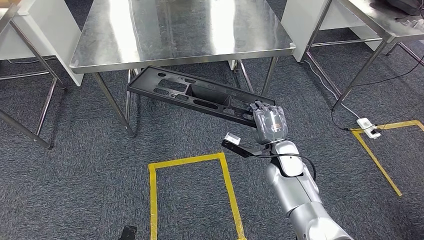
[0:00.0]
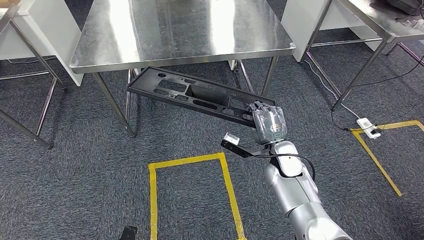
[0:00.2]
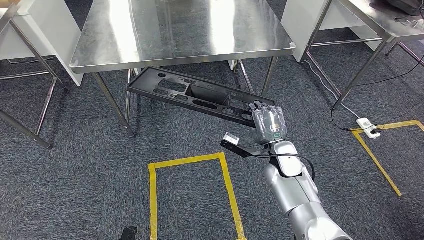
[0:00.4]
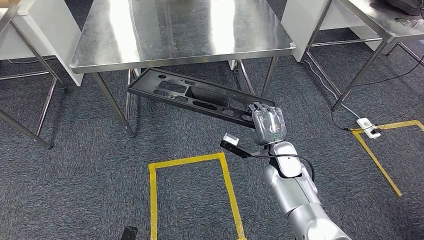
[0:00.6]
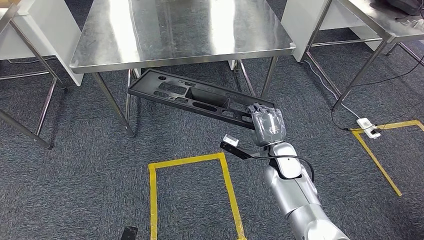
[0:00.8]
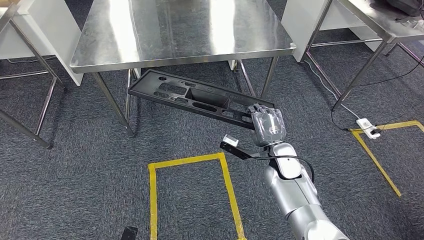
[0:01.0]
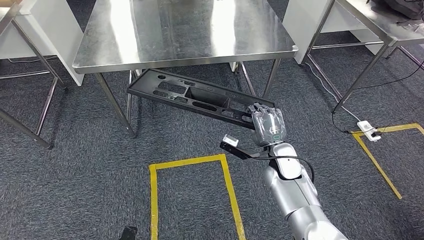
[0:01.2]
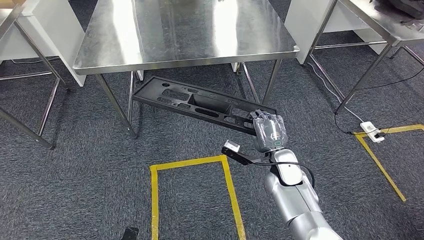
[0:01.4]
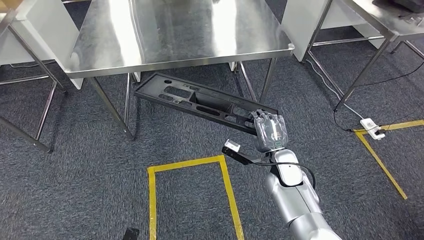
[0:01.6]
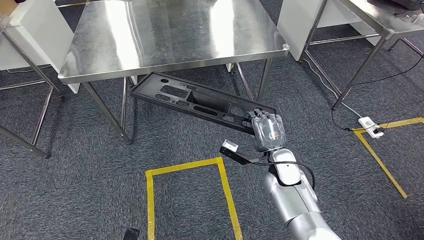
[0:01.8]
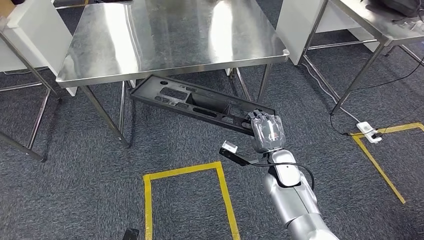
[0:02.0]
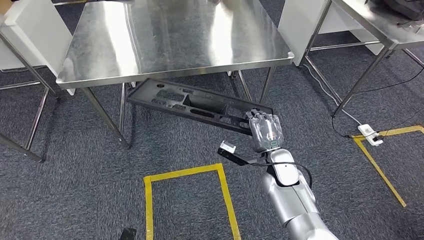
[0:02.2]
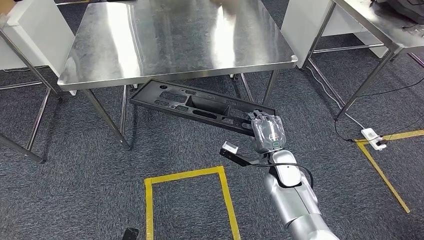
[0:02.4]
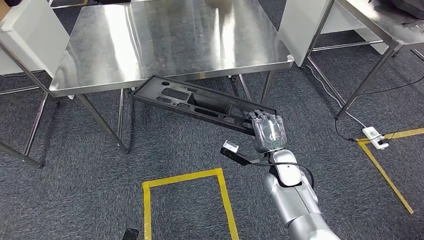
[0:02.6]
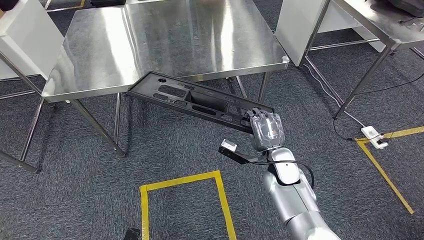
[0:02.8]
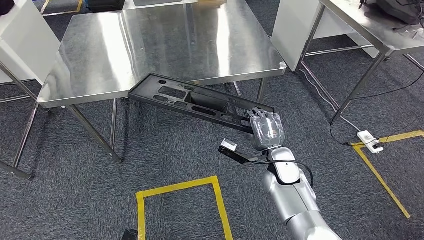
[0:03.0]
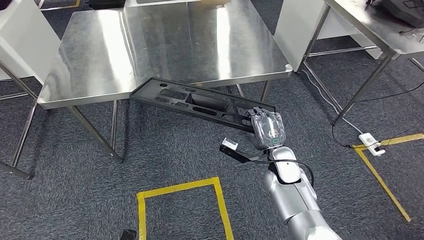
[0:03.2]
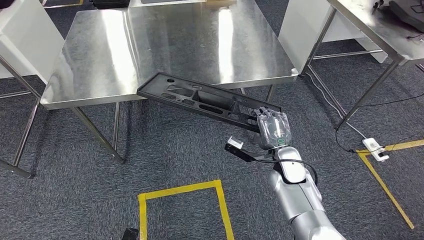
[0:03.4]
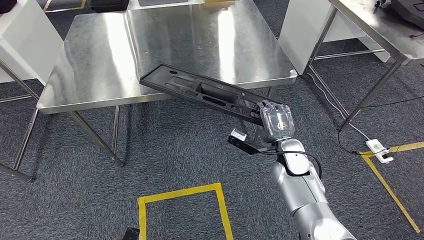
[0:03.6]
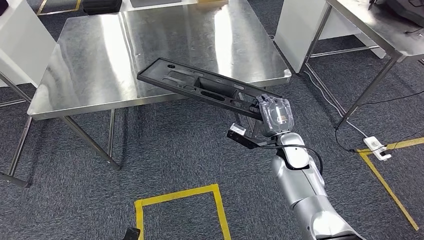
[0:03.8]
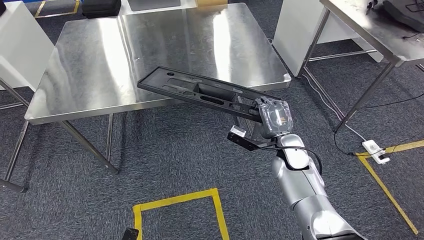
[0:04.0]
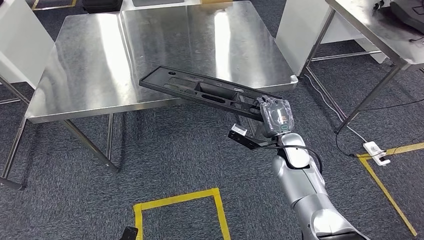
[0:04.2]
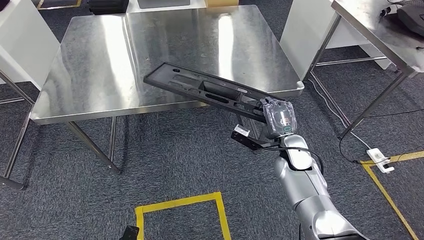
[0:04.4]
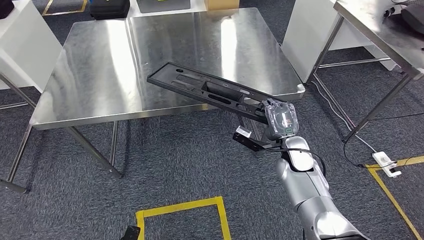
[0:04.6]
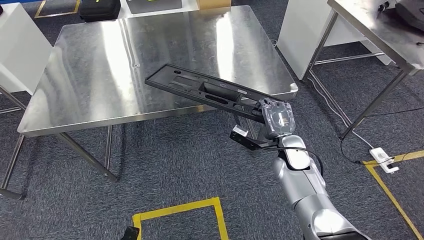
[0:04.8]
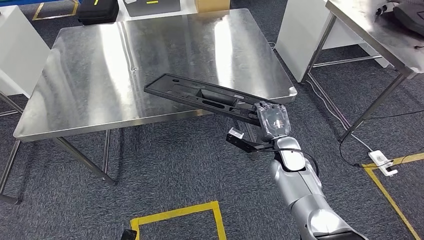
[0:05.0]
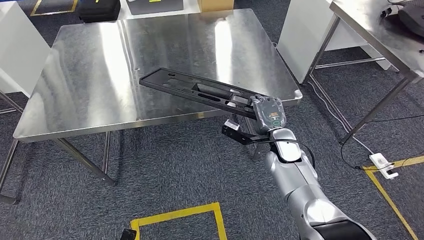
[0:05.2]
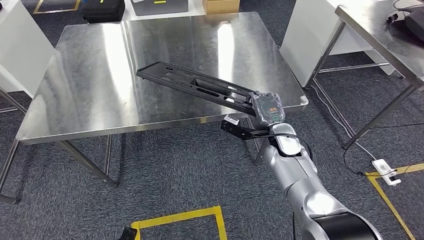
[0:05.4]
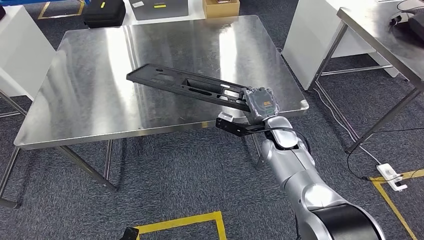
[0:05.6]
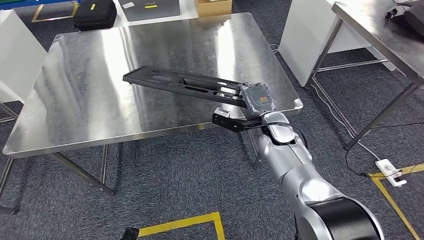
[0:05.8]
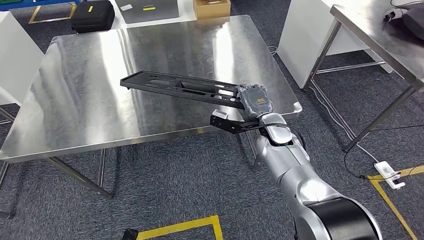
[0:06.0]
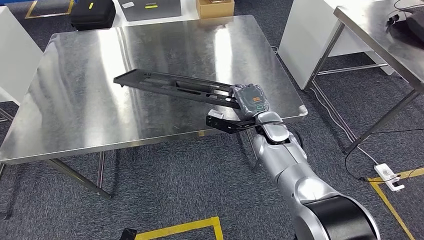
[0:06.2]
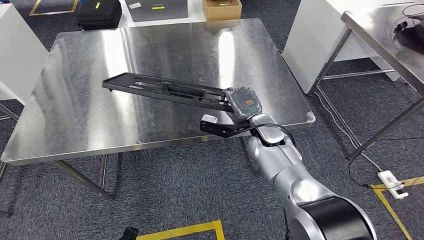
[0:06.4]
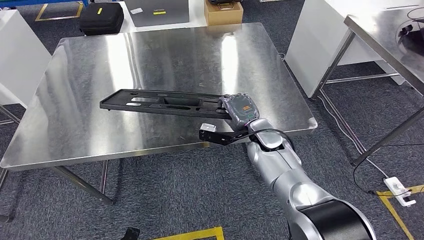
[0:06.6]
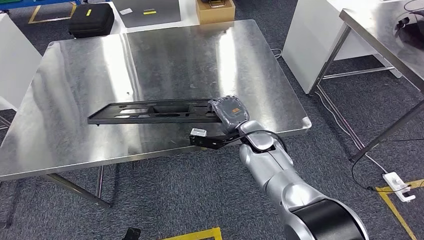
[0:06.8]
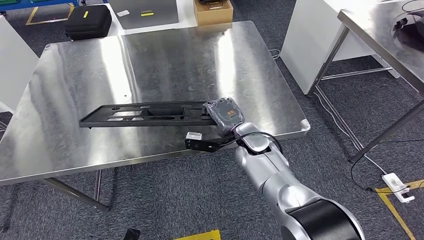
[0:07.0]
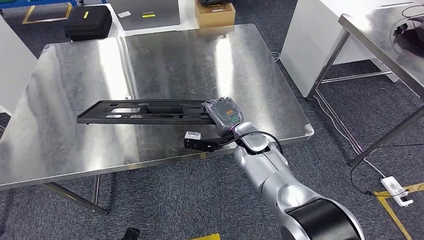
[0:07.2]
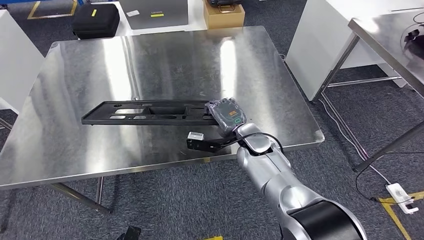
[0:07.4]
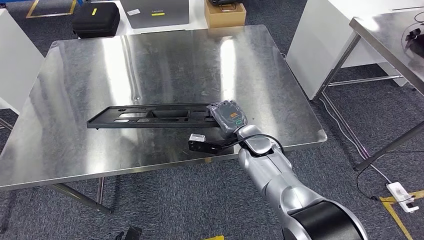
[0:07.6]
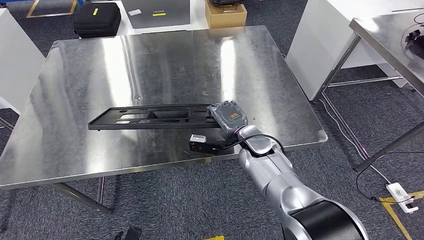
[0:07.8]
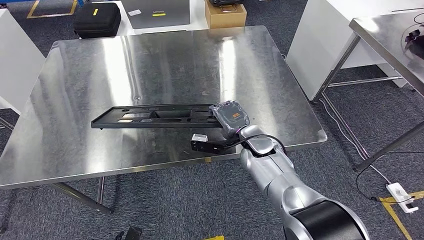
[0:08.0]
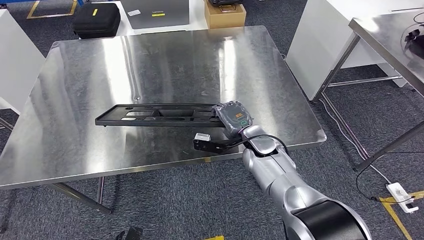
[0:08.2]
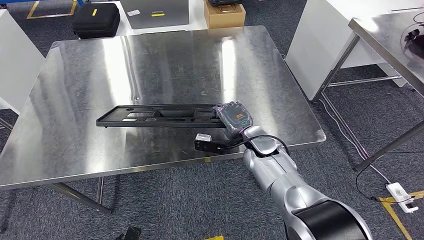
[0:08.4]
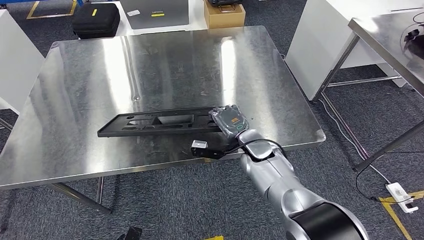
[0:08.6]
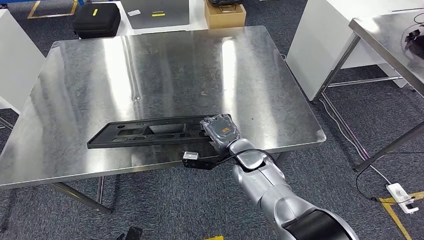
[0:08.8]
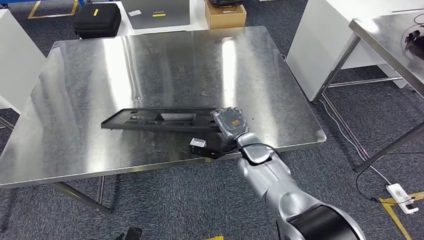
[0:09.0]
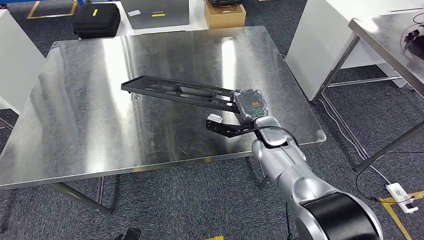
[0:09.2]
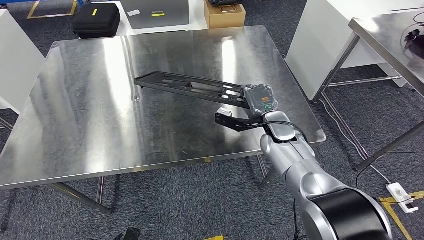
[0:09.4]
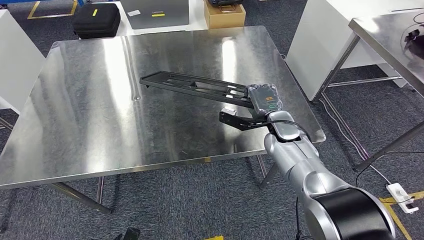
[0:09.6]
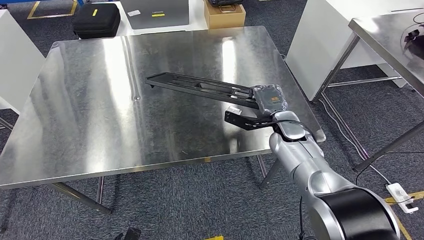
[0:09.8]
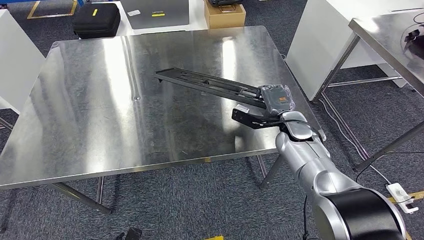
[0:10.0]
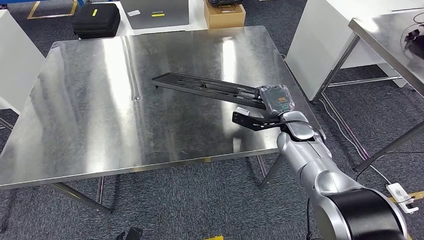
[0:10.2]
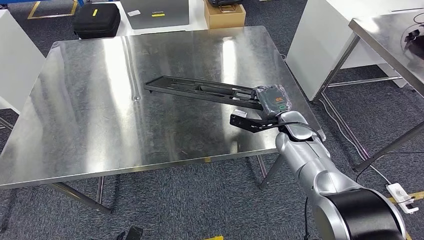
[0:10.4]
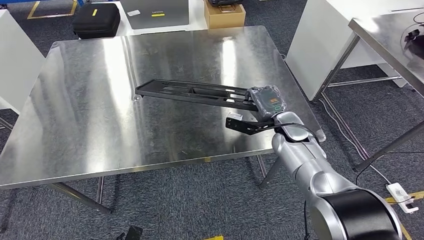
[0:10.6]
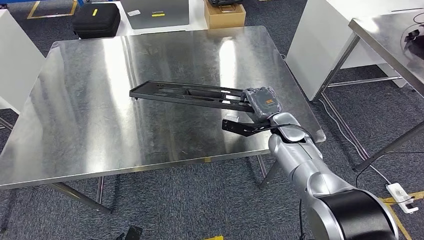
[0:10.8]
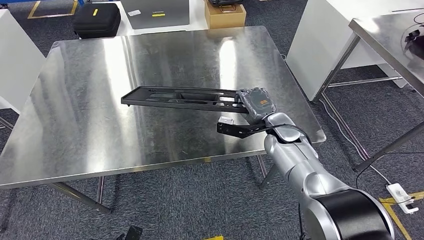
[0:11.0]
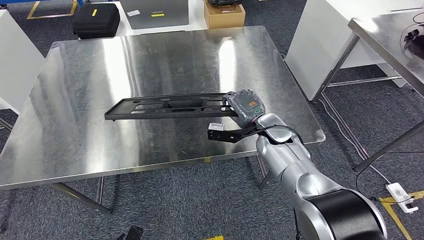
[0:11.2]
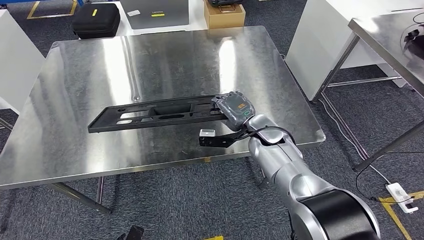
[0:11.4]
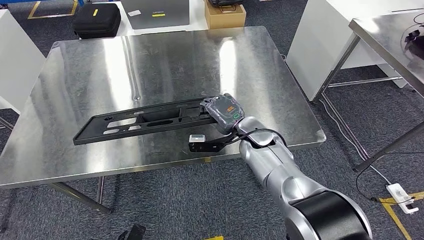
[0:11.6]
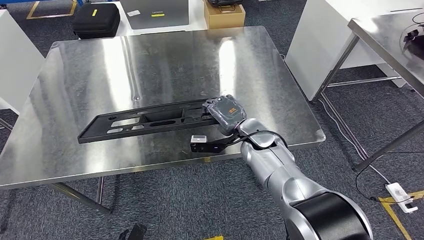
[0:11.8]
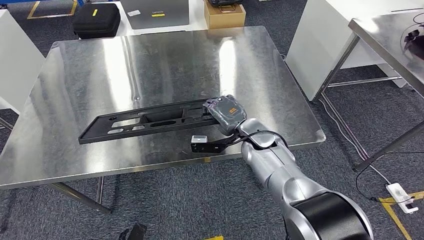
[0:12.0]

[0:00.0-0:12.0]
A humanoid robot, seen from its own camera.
Step, 0:00.0 to 0:04.8: Move the large material to the workbench.
0:00.0 to 0:01.6: The hands make only small movements.
0:07.6 to 0:09.0: There are only small adjustments of the hands.
0:09.0 to 0:10.4: The right hand goes approximately 10 cm to the right and forward.
0:10.4 to 0:12.0: The right hand moves to the left, some 10 cm.

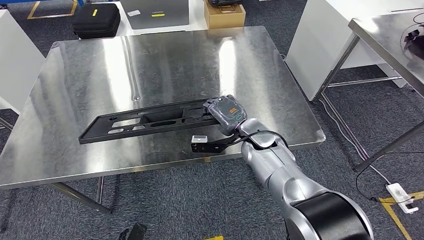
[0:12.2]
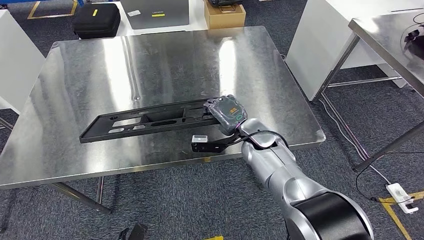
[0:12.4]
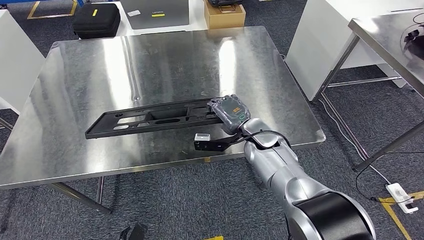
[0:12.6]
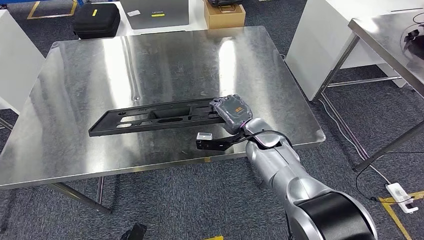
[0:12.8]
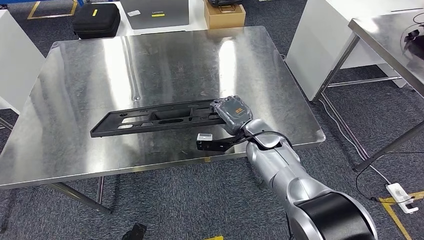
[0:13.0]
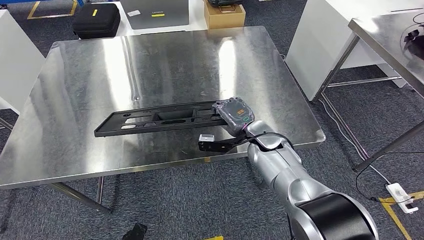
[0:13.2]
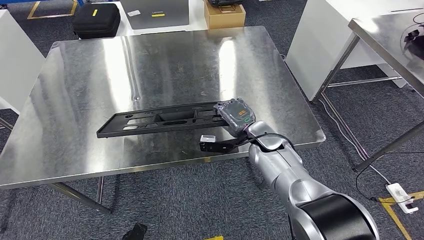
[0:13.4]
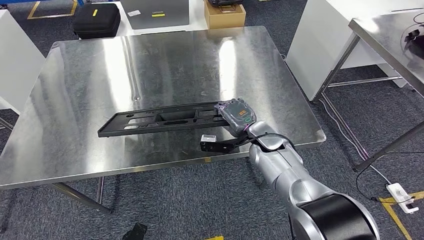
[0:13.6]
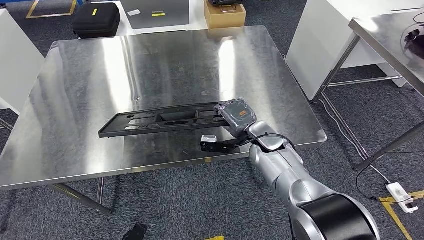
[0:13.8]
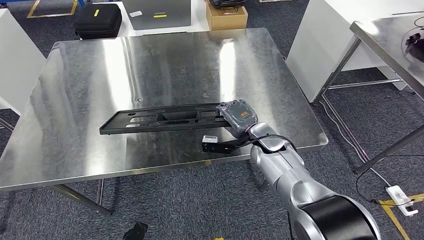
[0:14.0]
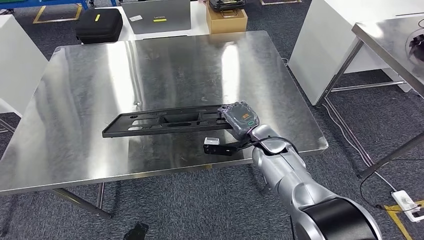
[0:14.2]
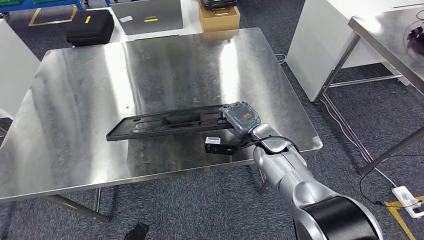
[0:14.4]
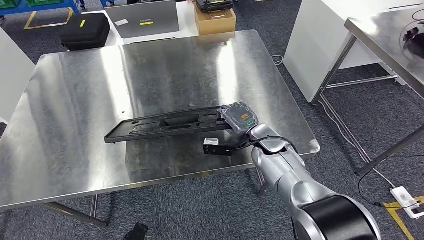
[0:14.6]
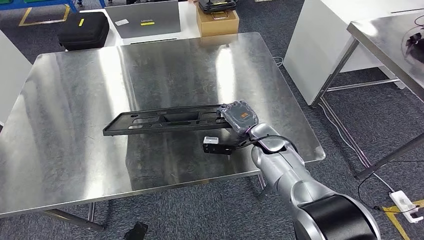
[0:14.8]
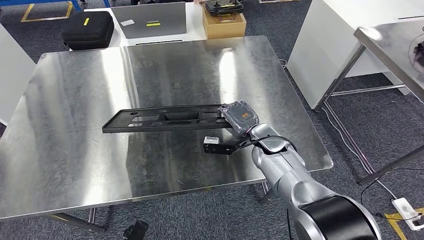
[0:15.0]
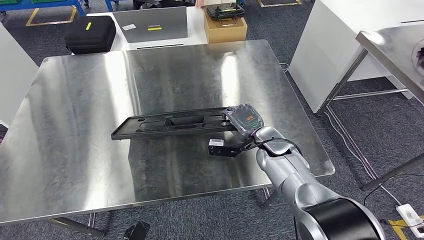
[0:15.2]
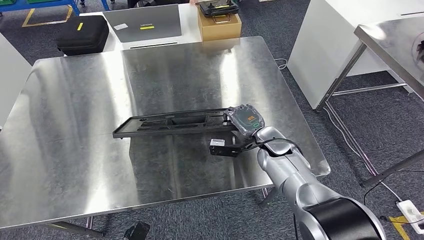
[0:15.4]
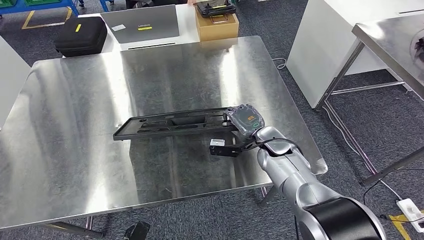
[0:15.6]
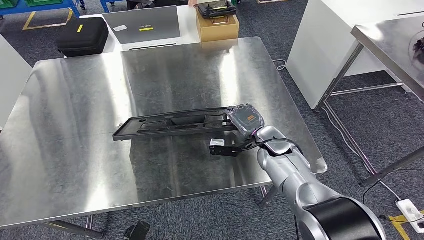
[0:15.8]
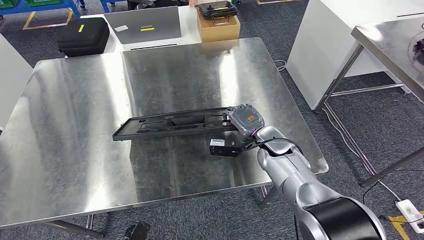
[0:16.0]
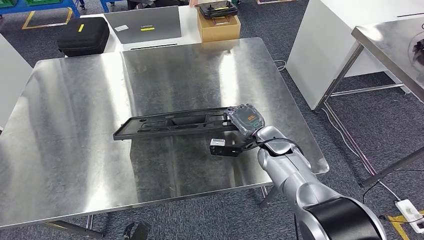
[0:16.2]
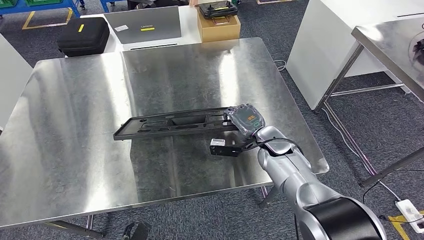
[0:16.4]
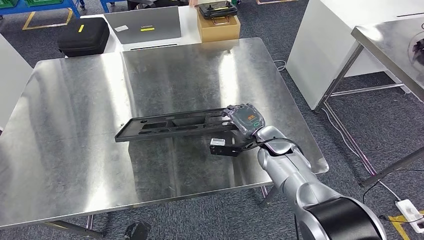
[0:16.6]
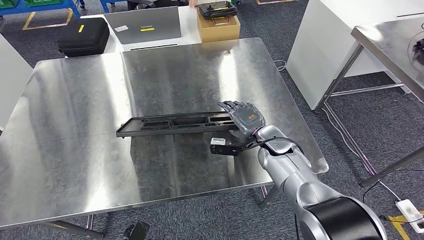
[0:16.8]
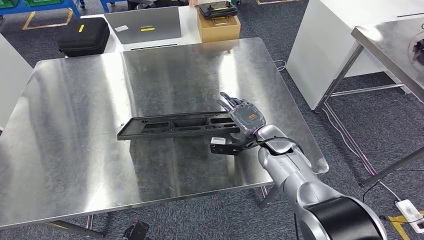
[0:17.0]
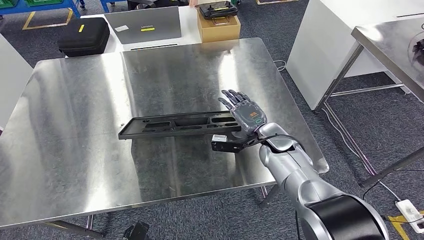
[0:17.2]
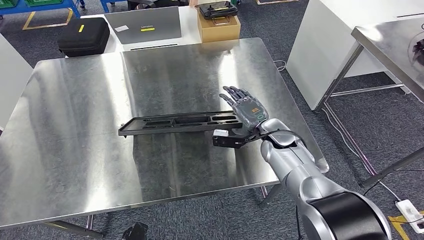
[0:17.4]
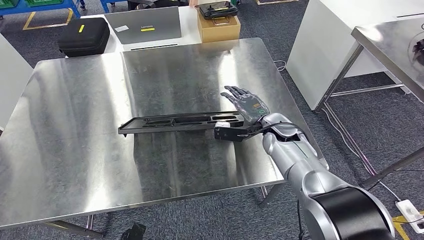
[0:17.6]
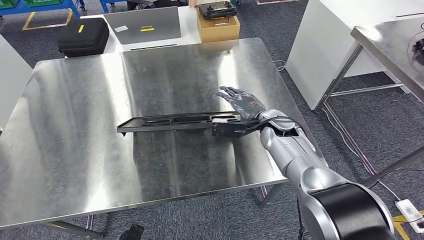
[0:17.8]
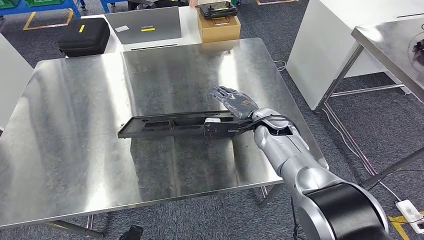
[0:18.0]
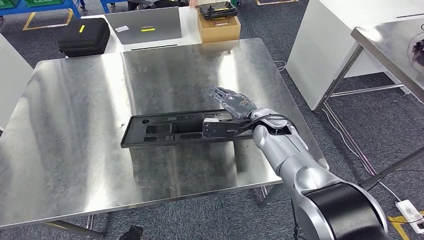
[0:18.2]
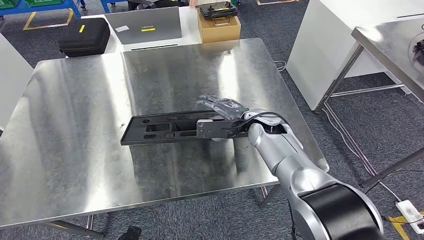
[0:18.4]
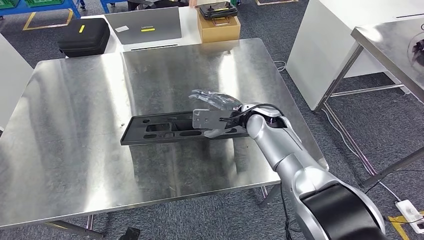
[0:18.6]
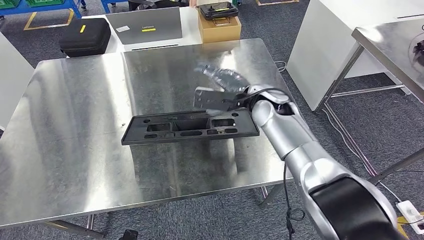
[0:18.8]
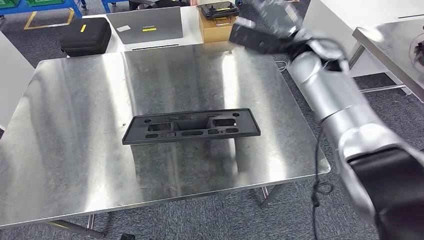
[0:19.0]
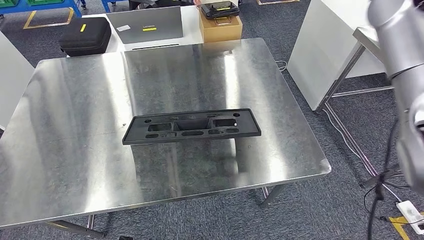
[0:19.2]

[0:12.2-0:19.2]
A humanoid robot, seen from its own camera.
Step, 0:12.2 to 0:17.8: Insert the large material into the corresponding slot on the workbench.
0:12.2 to 0:13.6: The hands stay close to where they were, moving slightly.
0:16.4 to 0:17.8: The right hand moves roughly 5 cm.
